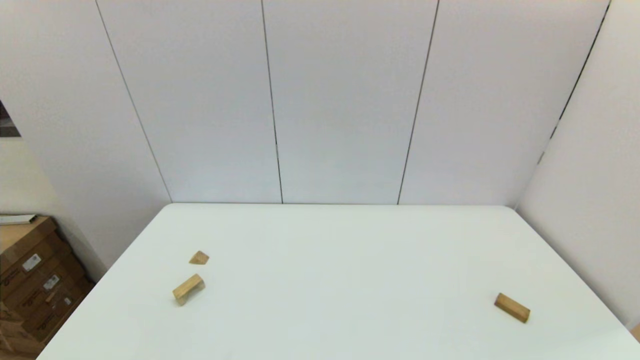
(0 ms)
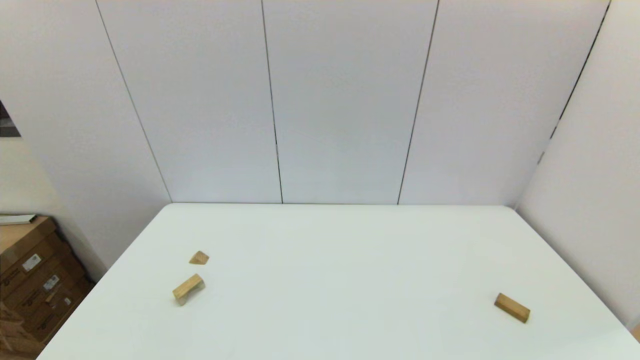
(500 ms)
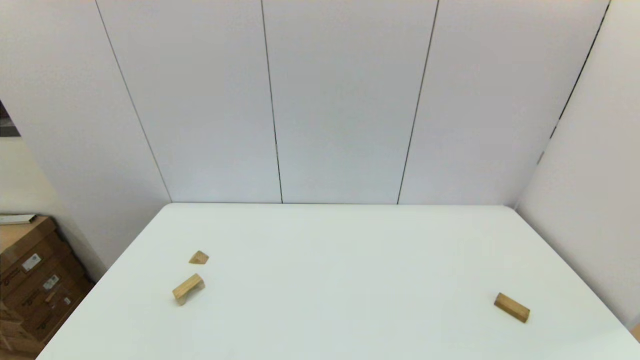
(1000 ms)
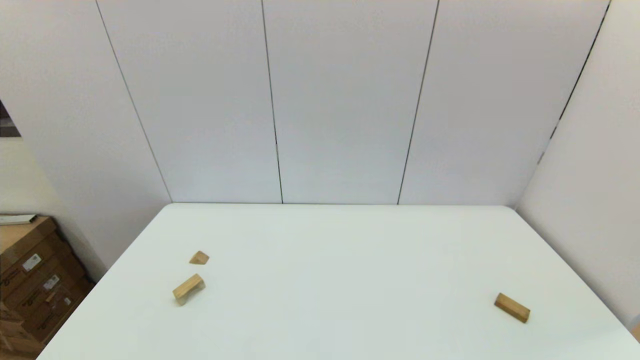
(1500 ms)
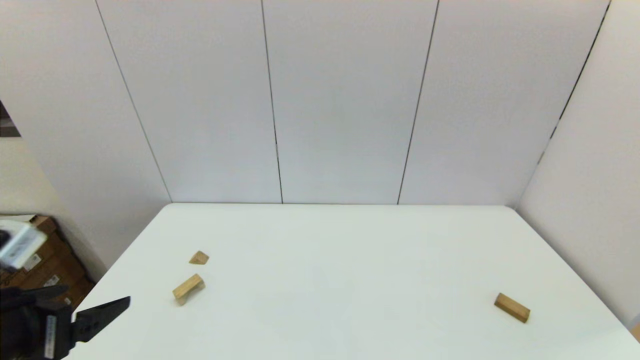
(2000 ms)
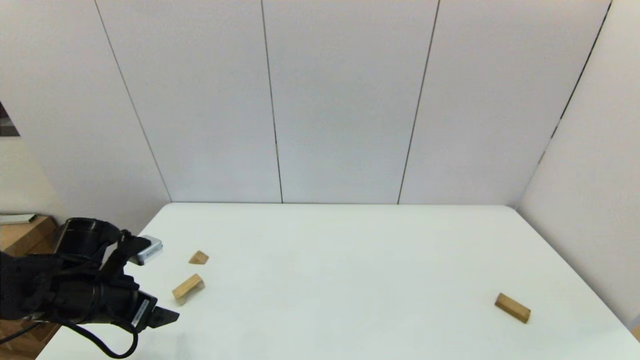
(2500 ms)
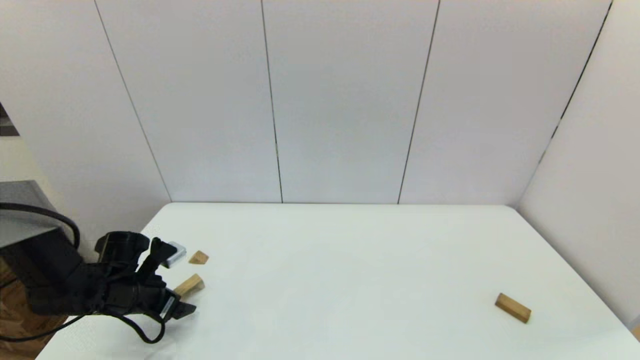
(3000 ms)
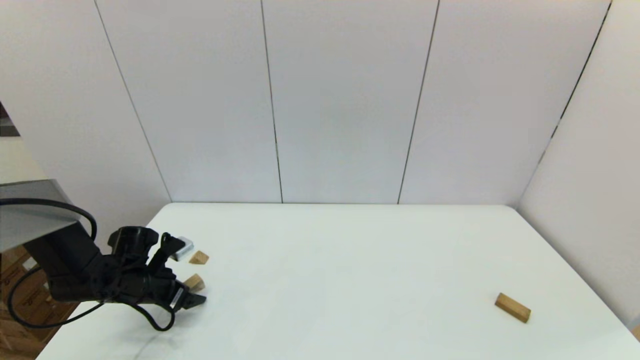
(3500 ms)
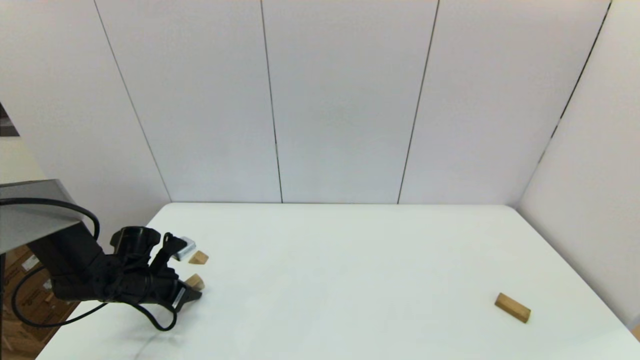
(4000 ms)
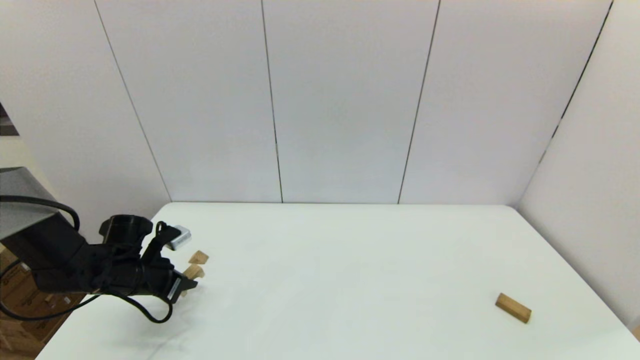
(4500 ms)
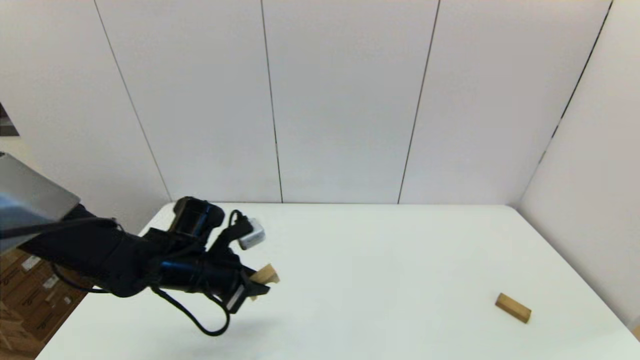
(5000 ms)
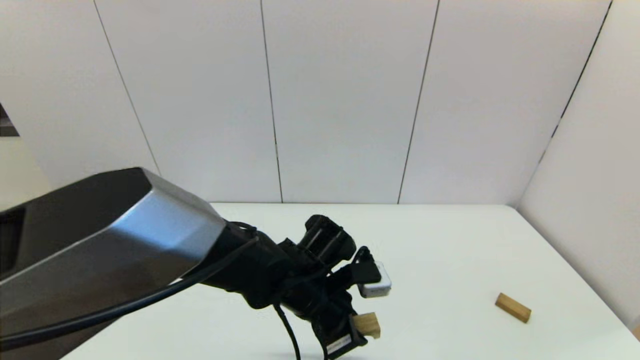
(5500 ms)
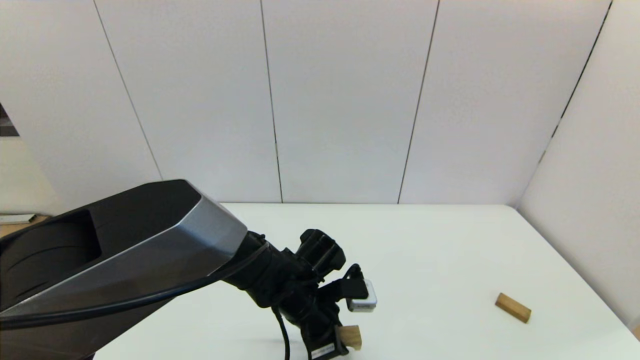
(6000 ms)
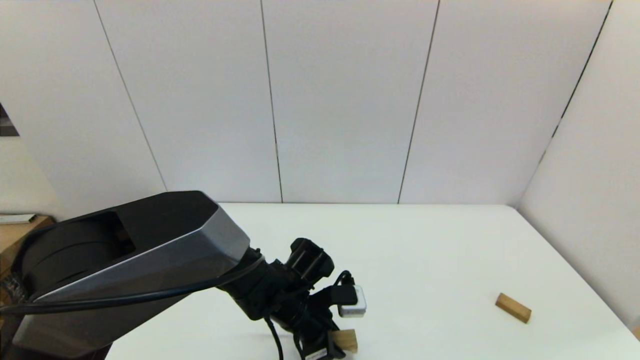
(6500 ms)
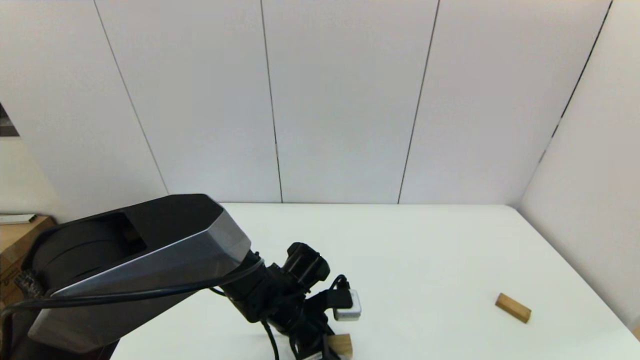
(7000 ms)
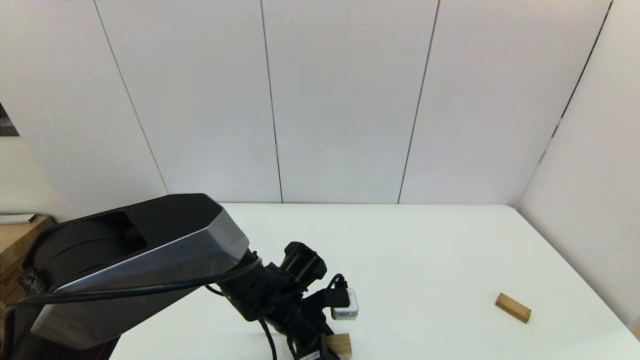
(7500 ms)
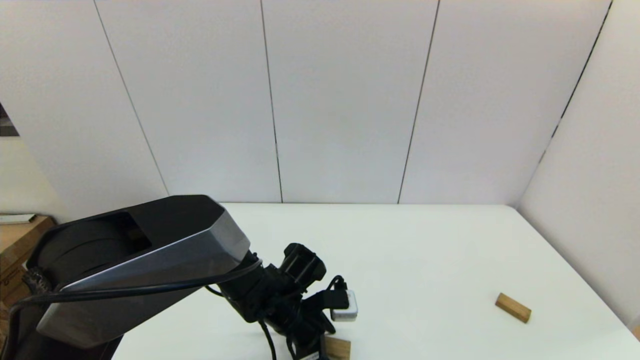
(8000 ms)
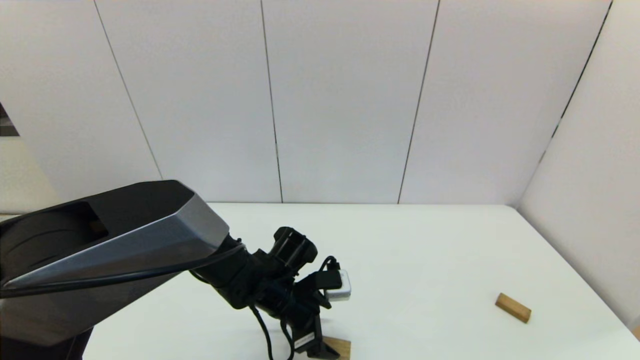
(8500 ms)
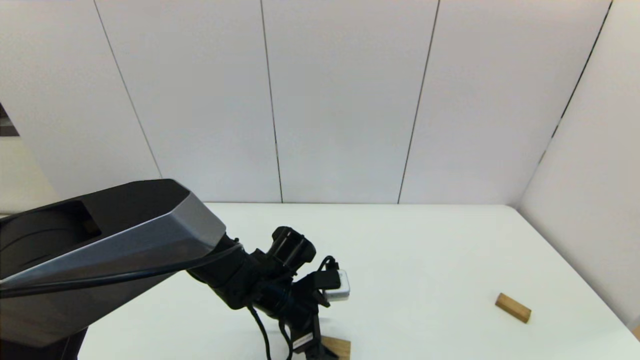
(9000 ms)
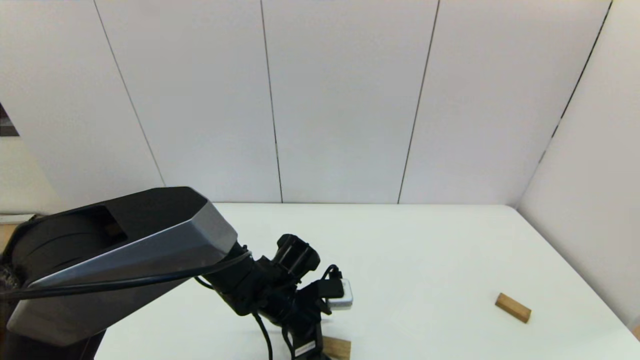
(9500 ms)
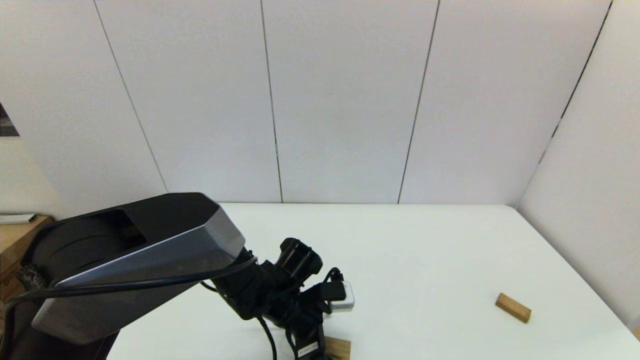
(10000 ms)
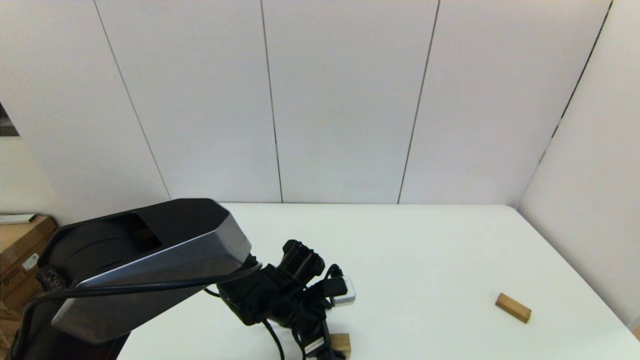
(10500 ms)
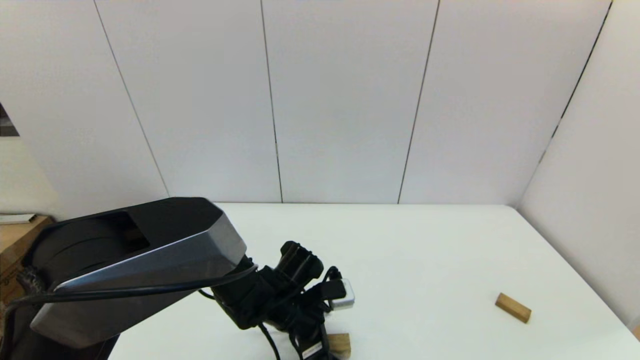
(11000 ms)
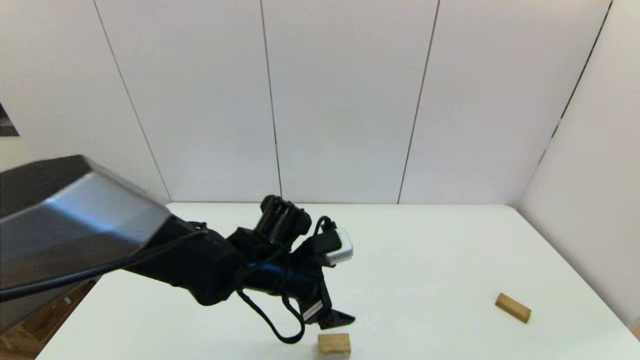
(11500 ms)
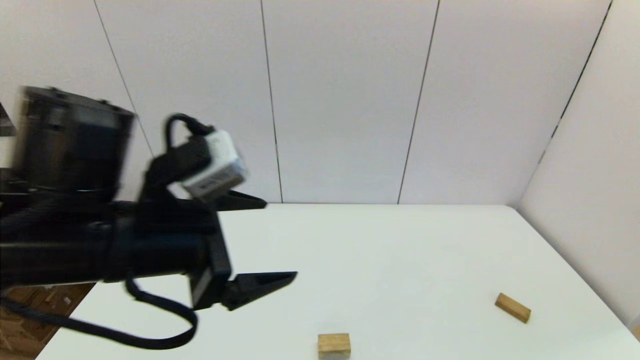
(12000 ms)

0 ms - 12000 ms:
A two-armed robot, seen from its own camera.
Task of the whole recording: place the arched building blocks in the center of the table, set up the rectangular building blocks, and then set up the triangular building blocks.
Step, 2000 ms - 4000 ms: Grasp the arch-shaped block with the left gripper.
Step, 4500 ms - 7500 ms: Place the arch-shaped block in the center of view with the left gripper.
0 ms - 2000 ms: The left gripper travels forward and upward by roughly 15 cm.
2000 ms - 4000 ms: The left gripper is displaced forward and downward by some 25 cm, and closes its fingers.
4000 ms - 6000 ms: The left gripper is displaced to the right by some 30 cm.
6000 ms - 8000 ms: The left gripper opens.
8000 ms - 10000 ms: The grippers move only a little.
10000 ms - 12000 ms: The left gripper heads upward, backward and to the left, covering about 30 cm.

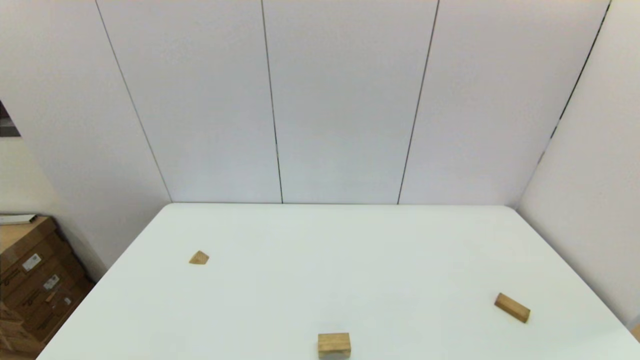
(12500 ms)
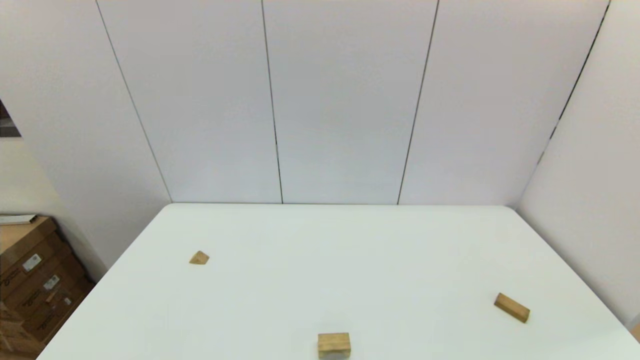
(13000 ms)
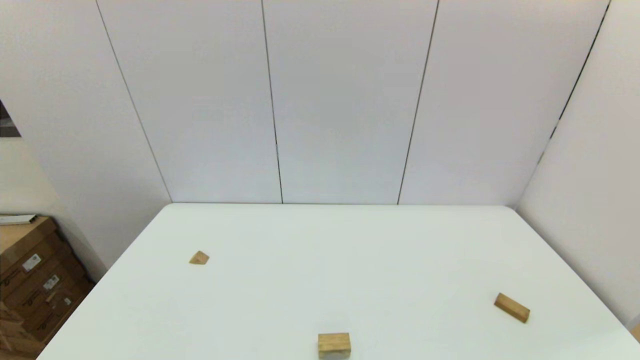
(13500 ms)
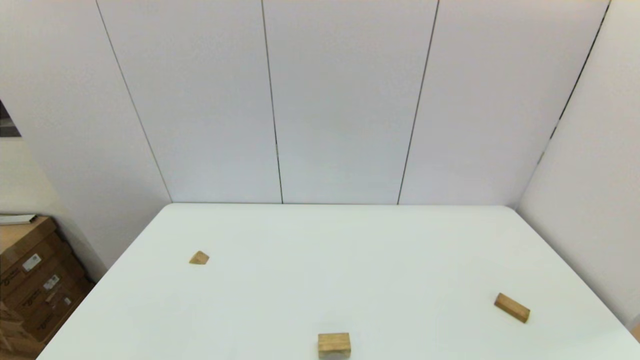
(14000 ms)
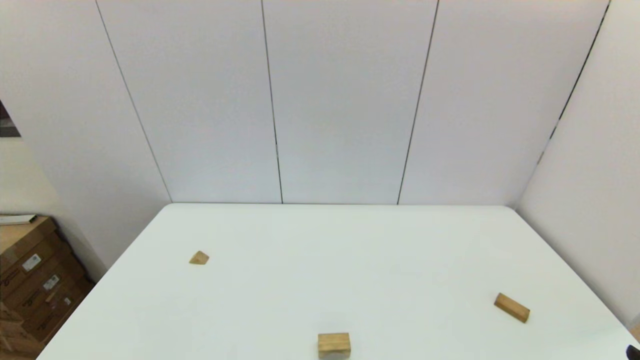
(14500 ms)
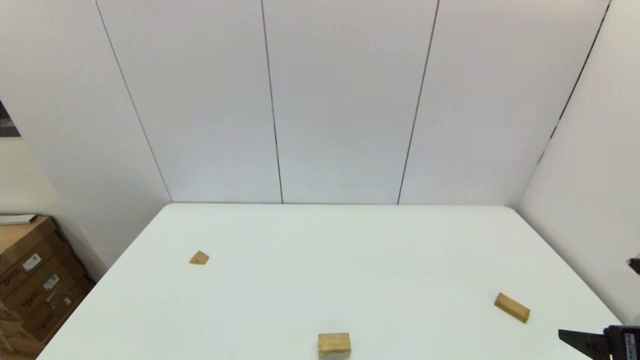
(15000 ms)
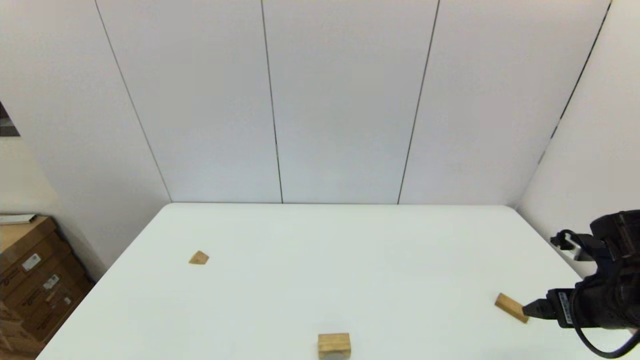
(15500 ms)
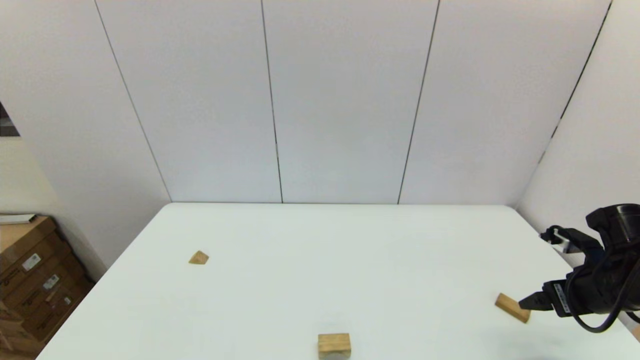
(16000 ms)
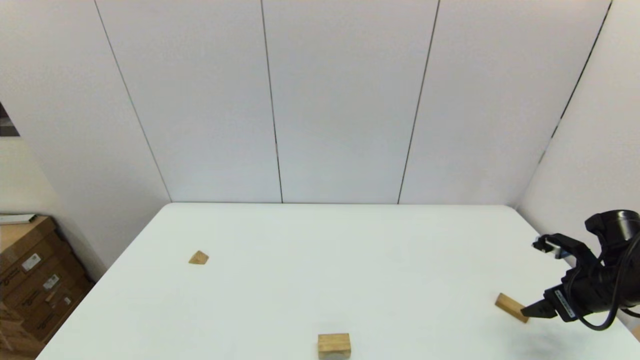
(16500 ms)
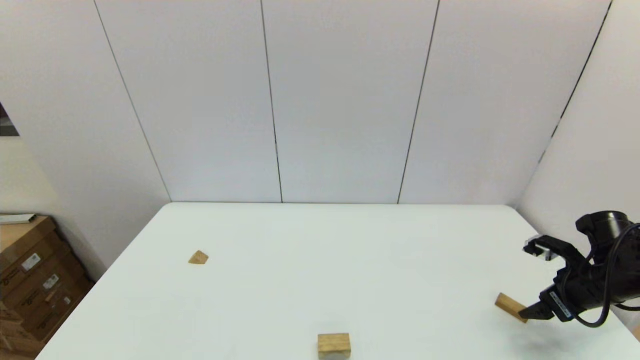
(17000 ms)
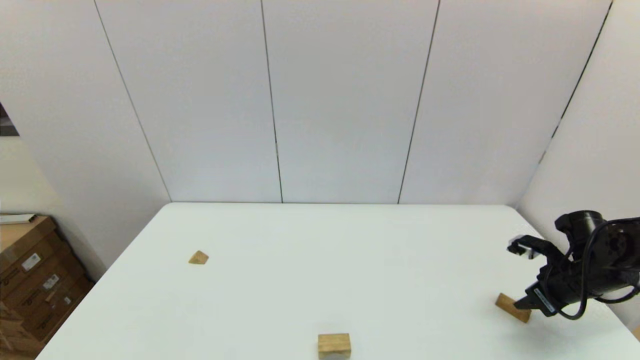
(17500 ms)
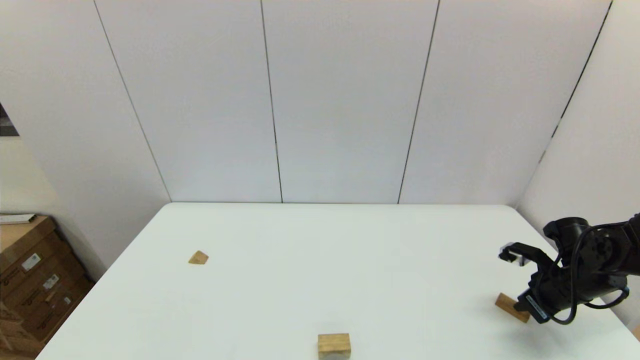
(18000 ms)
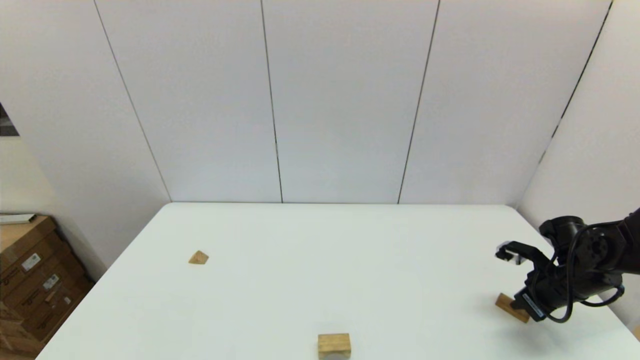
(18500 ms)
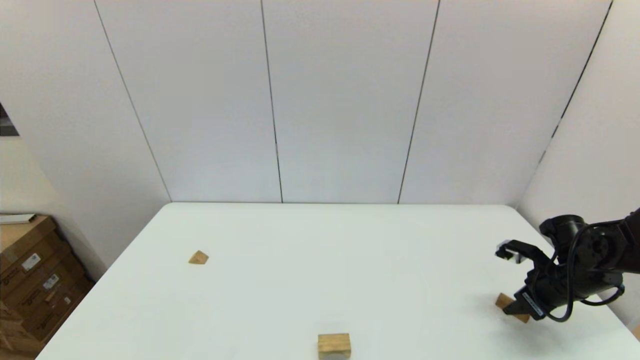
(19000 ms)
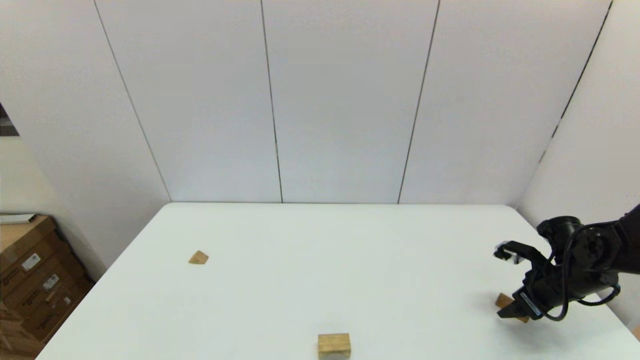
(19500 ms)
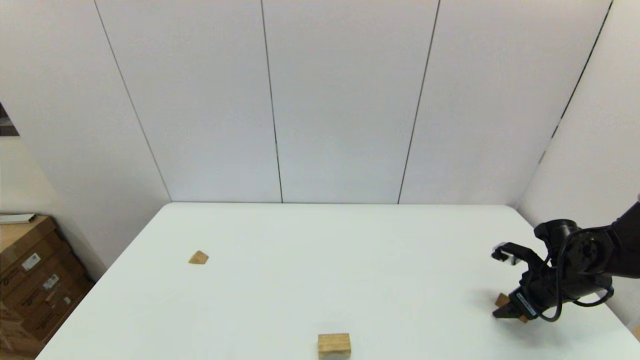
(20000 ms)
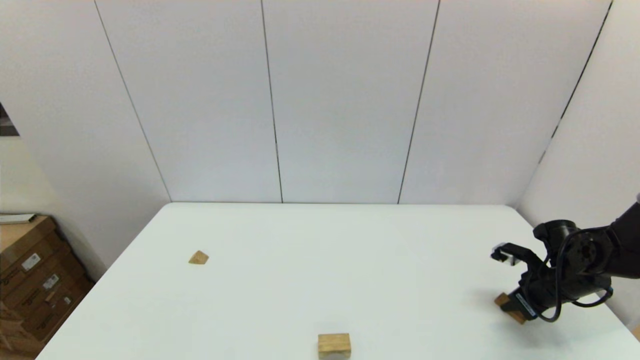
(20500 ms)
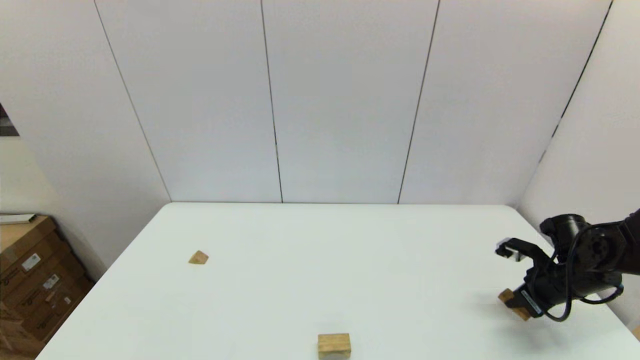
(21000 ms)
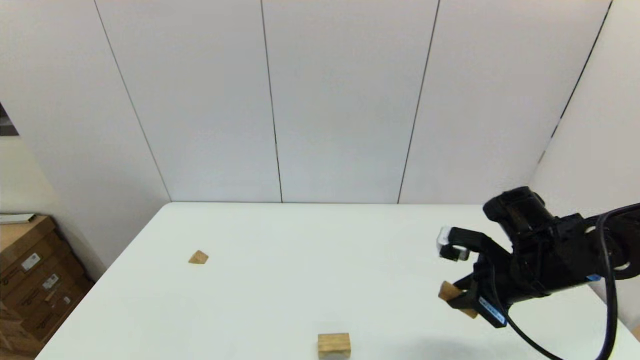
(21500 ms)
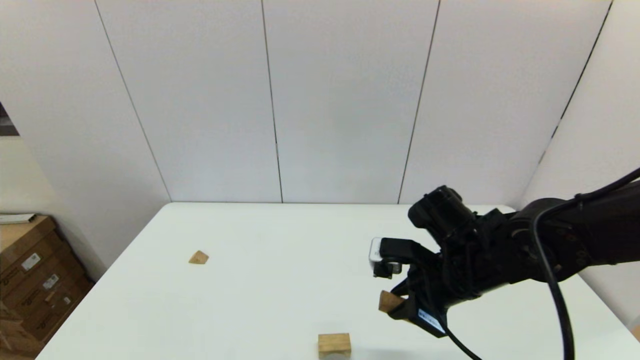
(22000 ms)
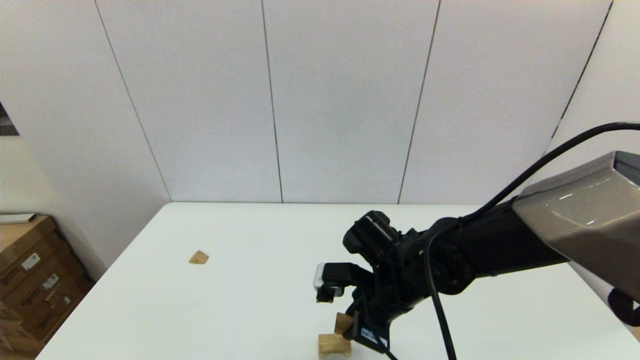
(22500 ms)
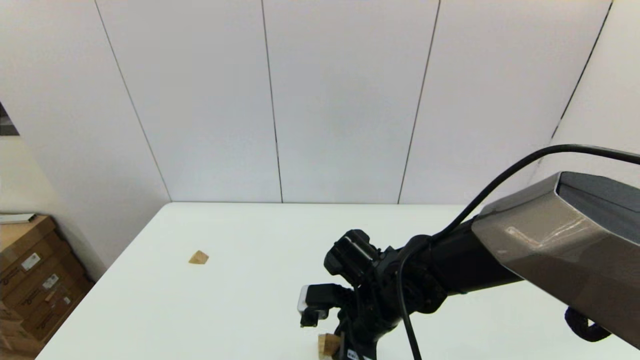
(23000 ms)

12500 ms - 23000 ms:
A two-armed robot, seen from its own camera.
Task of the whole recording: place the arched building blocks in the center of the table, set up the rectangular building blocks, and then set up the triangular building blocks.
Step, 12500 ms - 20500 ms: Grasp the box-shaped block with the right gripper.
14500 ms - 16500 ms: The right gripper shifts about 25 cm forward.
16500 ms - 19000 ms: The right gripper shifts by about 5 cm, and closes its fingers.
19000 ms - 21000 ms: The right gripper closes its fingers.
21000 ms - 23000 ms: The right gripper shifts approximately 35 cm to the left.
